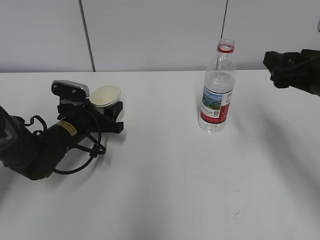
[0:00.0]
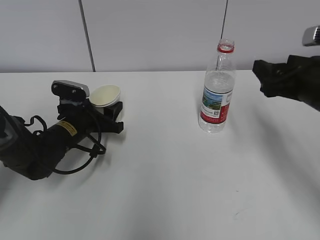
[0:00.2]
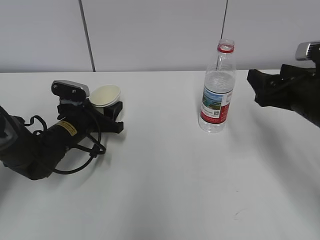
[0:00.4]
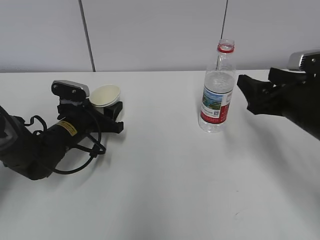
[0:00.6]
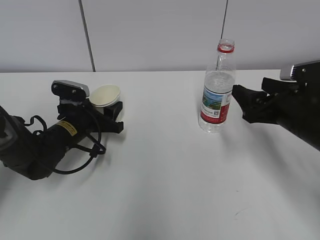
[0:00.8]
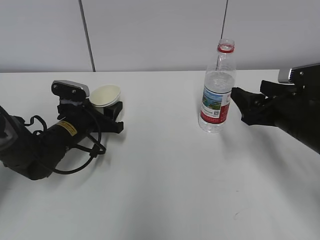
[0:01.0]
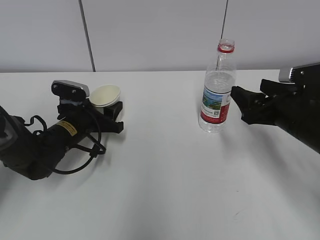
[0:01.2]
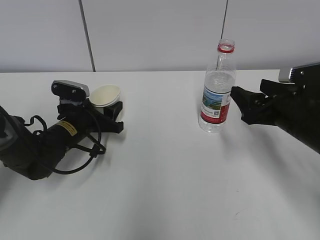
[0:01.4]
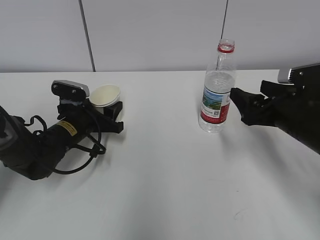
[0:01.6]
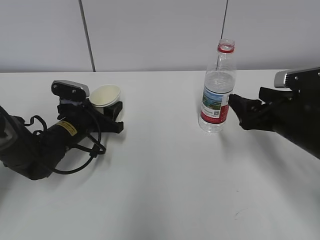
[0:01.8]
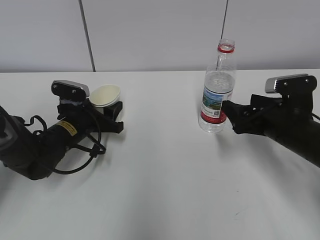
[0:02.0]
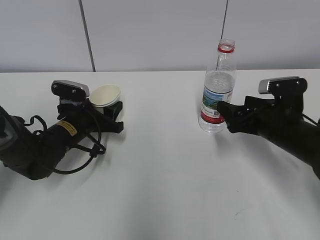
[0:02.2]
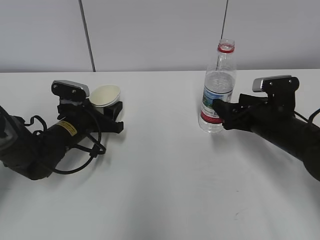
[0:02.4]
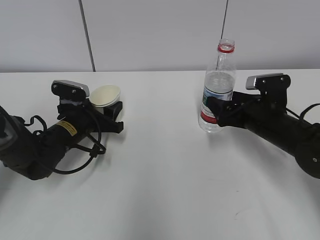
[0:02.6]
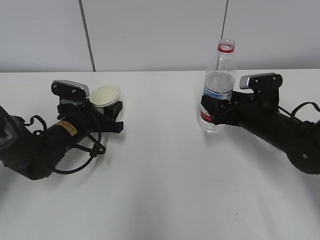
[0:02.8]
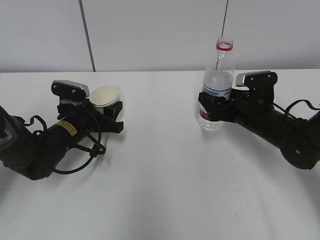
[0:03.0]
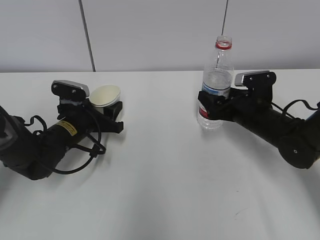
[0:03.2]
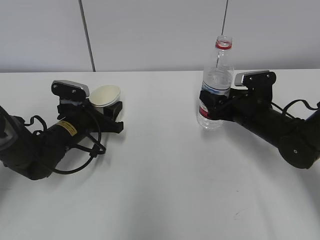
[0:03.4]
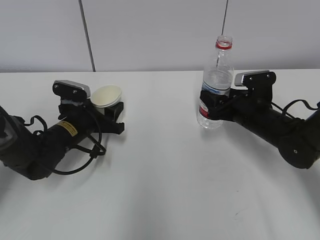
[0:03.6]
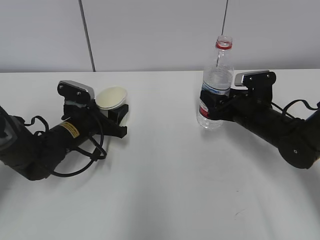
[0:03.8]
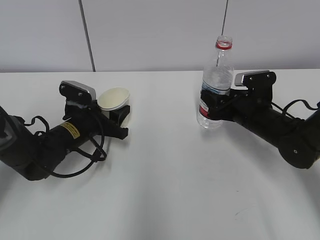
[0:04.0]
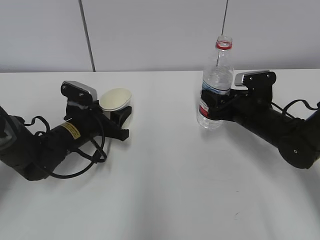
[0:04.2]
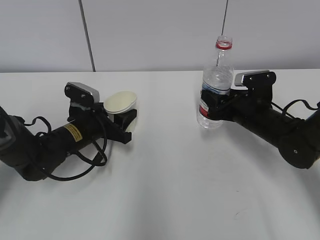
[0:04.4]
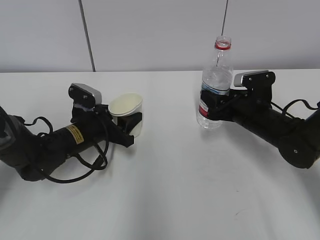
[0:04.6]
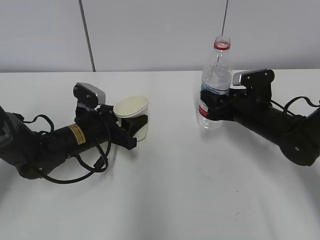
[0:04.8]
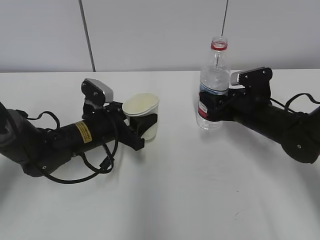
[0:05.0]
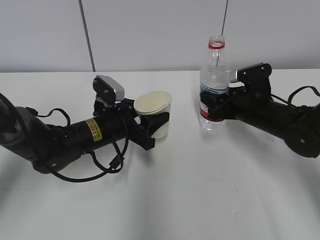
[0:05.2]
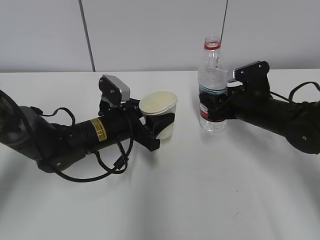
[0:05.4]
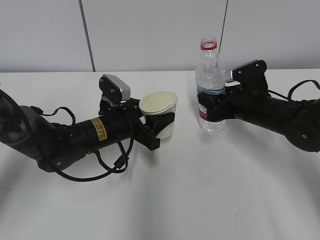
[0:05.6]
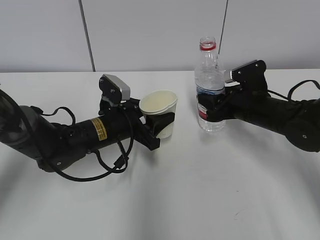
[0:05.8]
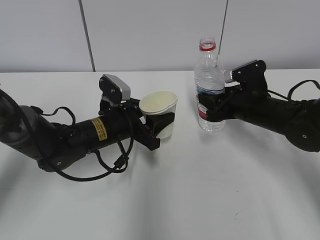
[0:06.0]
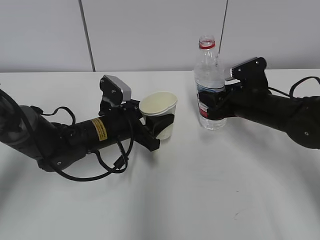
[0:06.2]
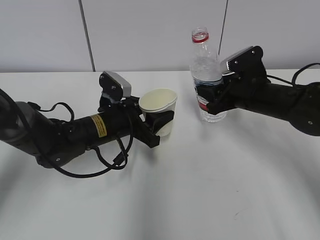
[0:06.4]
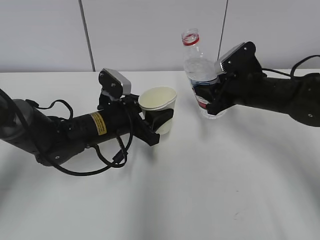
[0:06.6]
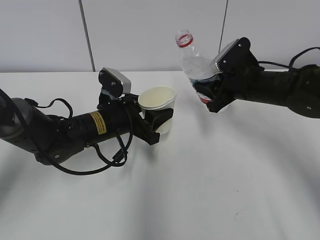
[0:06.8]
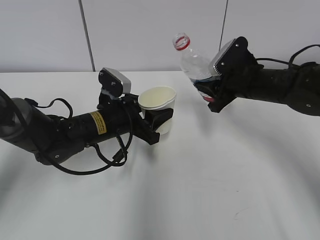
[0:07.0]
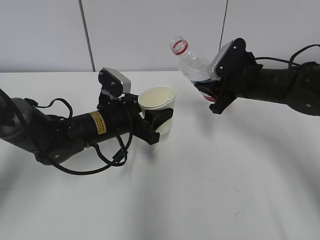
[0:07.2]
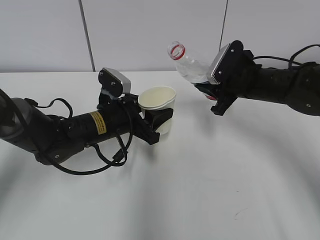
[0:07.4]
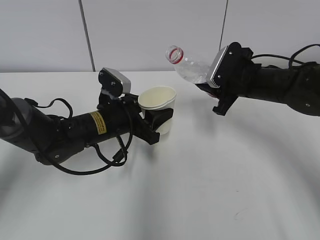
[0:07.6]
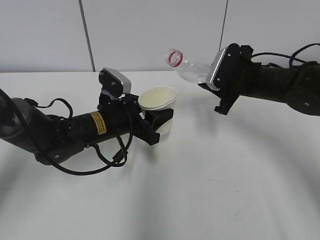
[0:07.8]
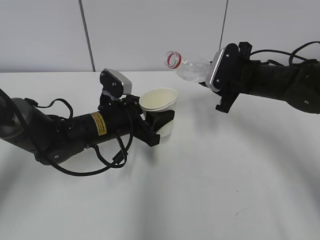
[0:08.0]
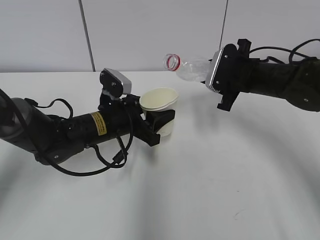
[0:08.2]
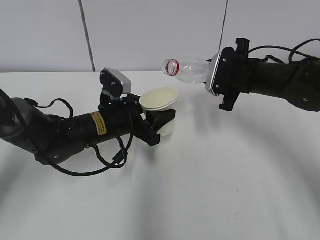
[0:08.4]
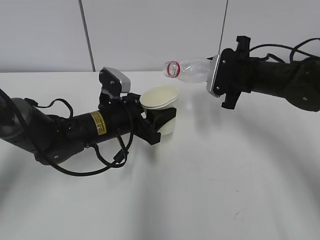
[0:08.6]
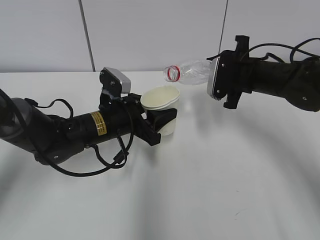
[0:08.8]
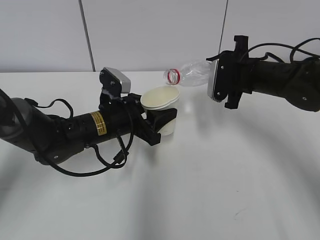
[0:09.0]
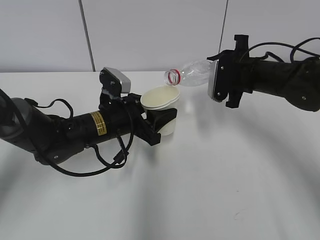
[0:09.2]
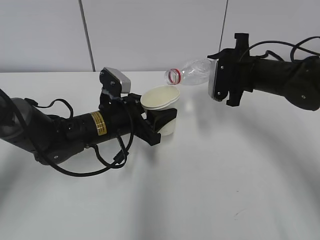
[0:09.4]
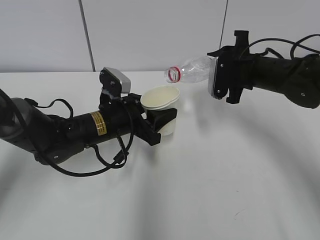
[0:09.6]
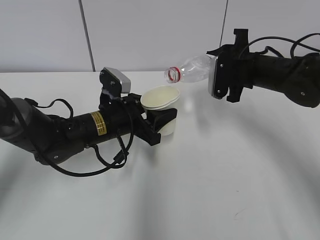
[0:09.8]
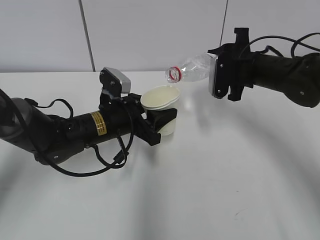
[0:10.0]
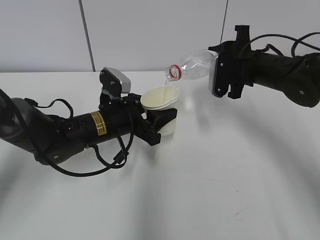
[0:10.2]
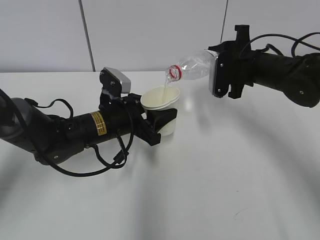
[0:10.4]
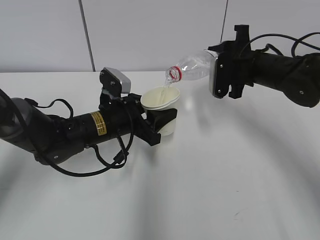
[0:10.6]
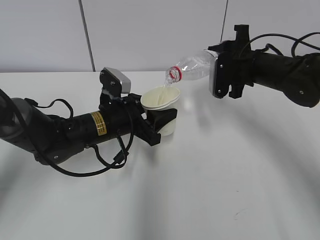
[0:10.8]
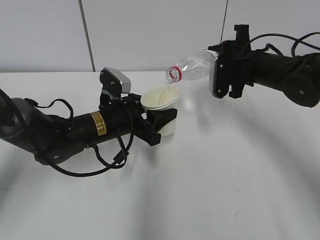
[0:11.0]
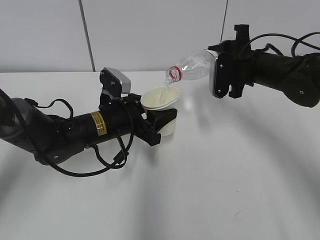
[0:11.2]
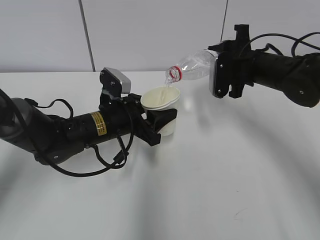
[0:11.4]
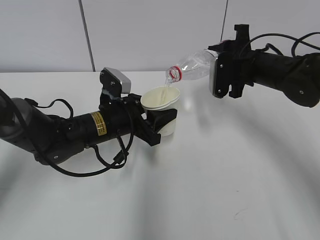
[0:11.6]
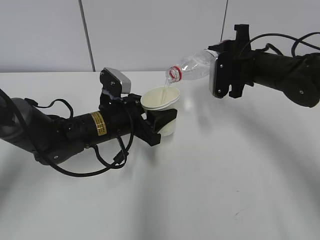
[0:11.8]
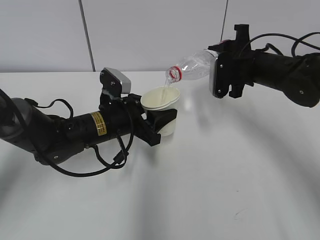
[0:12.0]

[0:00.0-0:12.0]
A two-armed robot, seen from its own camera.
Step, 0:00.0 to 0:01.6: Grab the water bottle with the right hand.
Step, 0:01.8 to 0:07.2: Lift the paper cup with the left hand.
Step, 0:07.4 to 0:11.6: Fill water with the left hand.
Step, 0:07.4 to 0:11.6: Pour water with the right hand.
0:00.0 to 0:01.6: The right gripper moves downward, approximately 10 cm.
0:01.6 to 0:03.0: The right gripper travels forward and downward by about 10 cm.
0:03.0 to 0:04.4: The right gripper closes its fingers.
0:04.4 to 0:06.0: The left gripper travels to the right by about 5 cm.
0:06.0 to 0:07.6: The right gripper changes place by approximately 5 cm.
0:09.0 to 0:10.4: The grippers make only small movements.
0:10.4 to 0:12.0: Both grippers stay put.

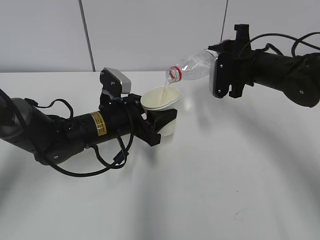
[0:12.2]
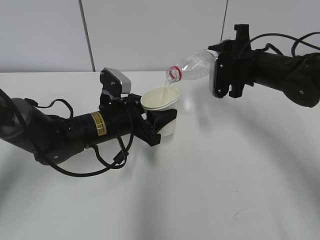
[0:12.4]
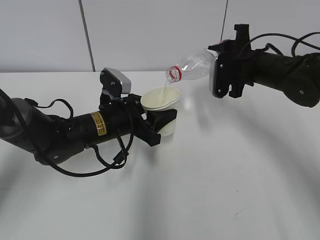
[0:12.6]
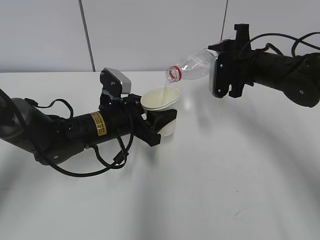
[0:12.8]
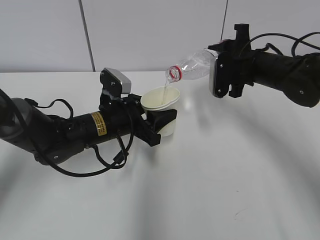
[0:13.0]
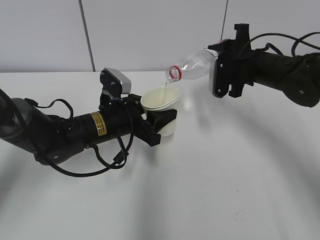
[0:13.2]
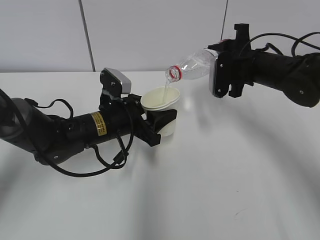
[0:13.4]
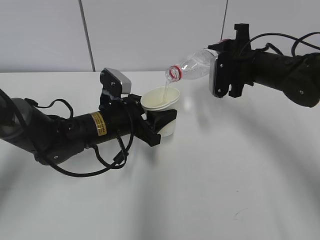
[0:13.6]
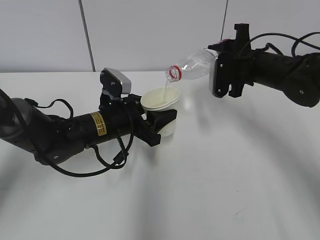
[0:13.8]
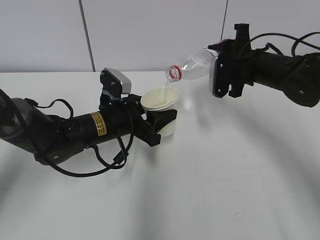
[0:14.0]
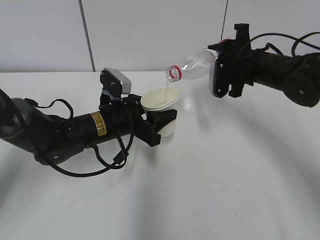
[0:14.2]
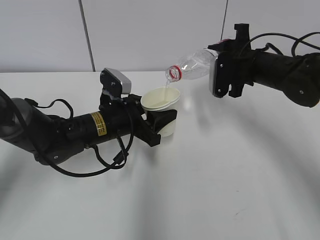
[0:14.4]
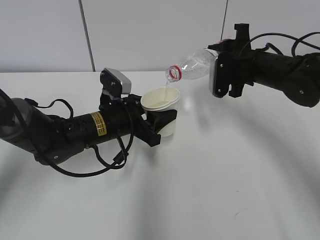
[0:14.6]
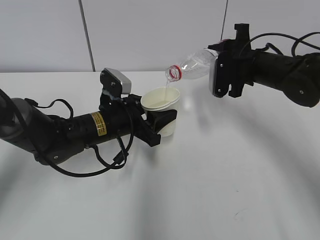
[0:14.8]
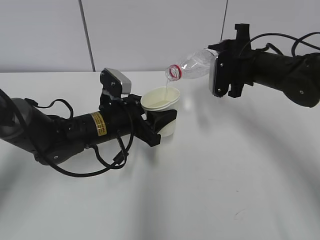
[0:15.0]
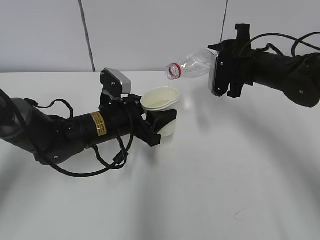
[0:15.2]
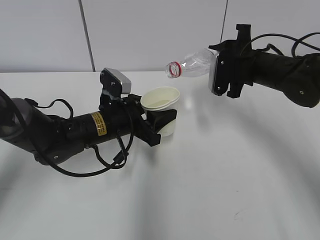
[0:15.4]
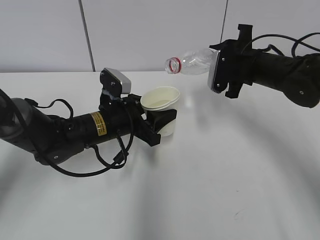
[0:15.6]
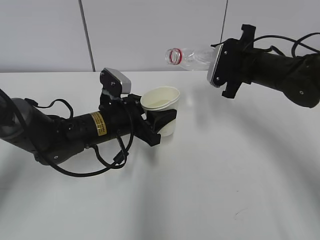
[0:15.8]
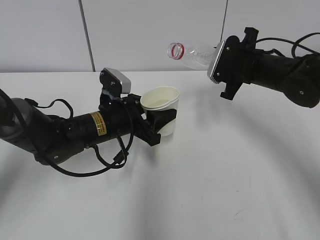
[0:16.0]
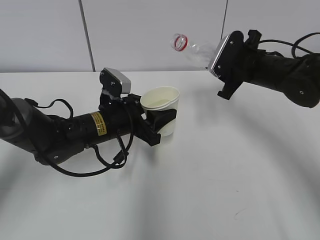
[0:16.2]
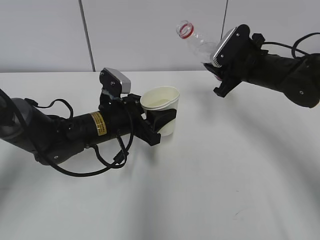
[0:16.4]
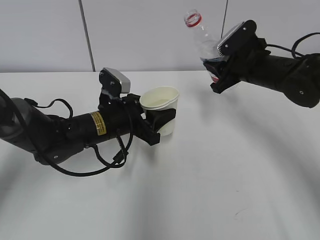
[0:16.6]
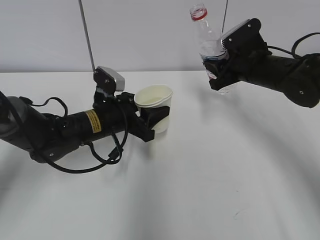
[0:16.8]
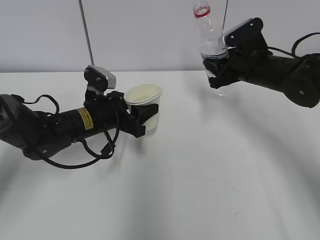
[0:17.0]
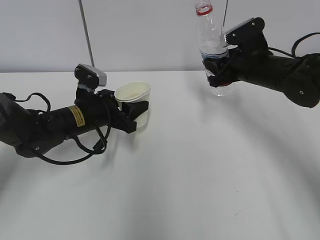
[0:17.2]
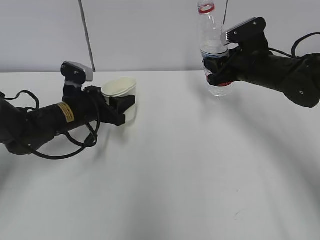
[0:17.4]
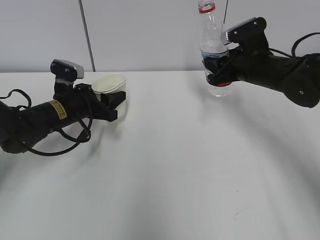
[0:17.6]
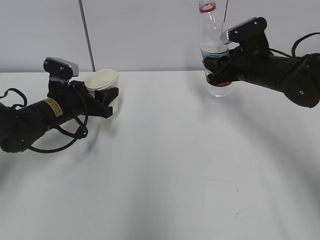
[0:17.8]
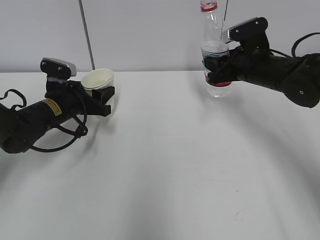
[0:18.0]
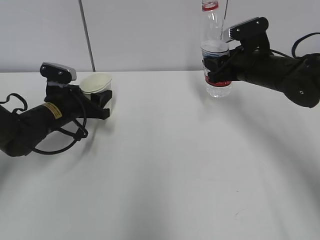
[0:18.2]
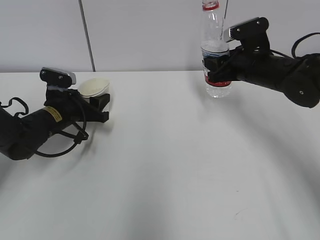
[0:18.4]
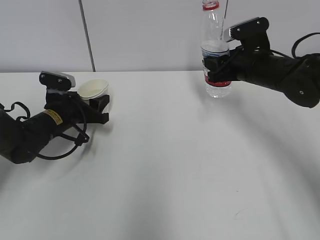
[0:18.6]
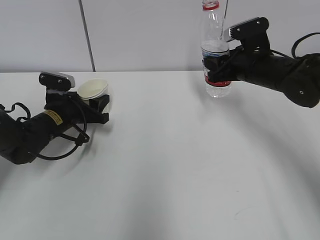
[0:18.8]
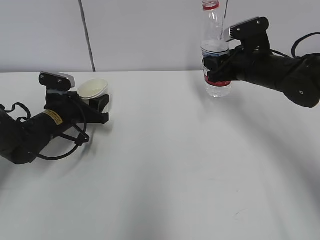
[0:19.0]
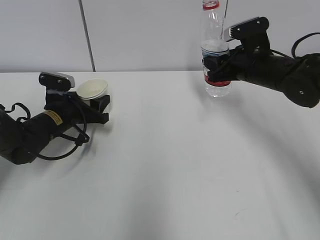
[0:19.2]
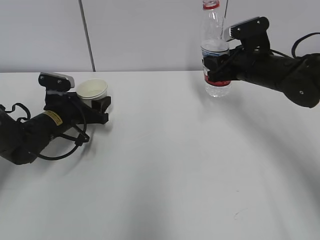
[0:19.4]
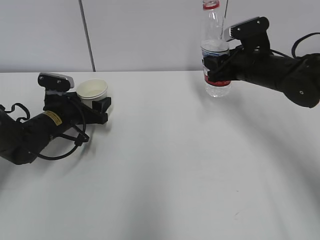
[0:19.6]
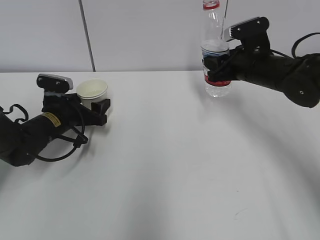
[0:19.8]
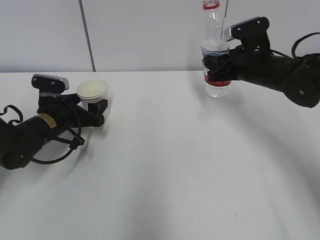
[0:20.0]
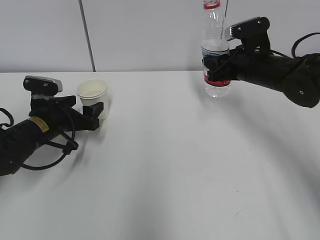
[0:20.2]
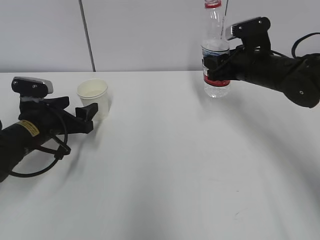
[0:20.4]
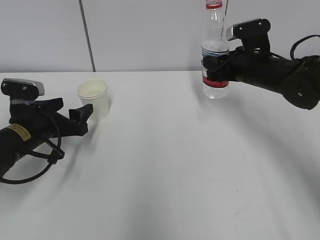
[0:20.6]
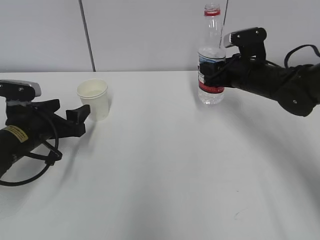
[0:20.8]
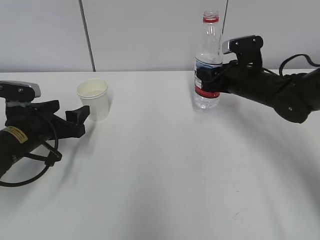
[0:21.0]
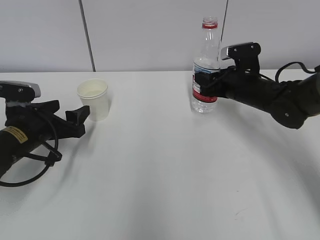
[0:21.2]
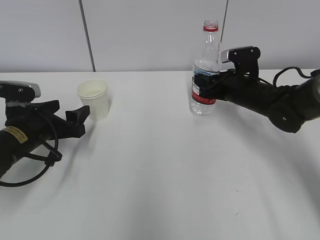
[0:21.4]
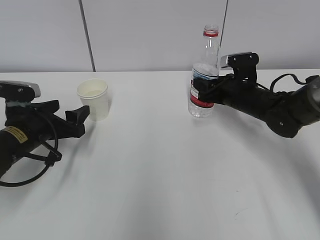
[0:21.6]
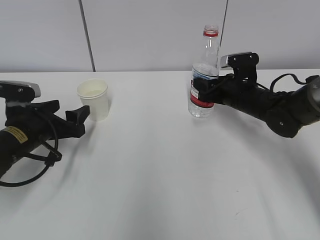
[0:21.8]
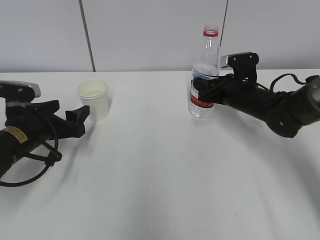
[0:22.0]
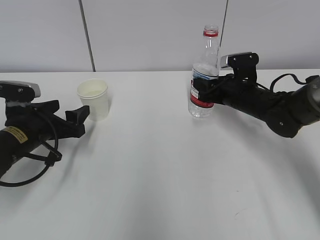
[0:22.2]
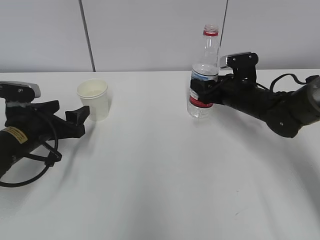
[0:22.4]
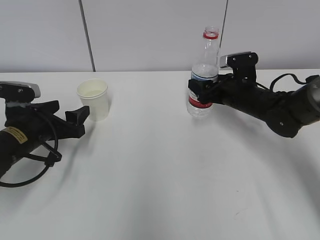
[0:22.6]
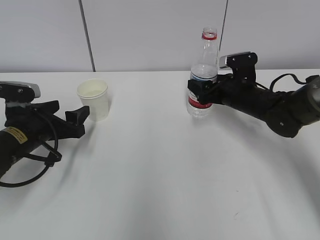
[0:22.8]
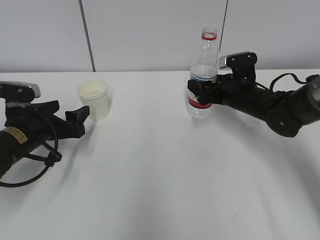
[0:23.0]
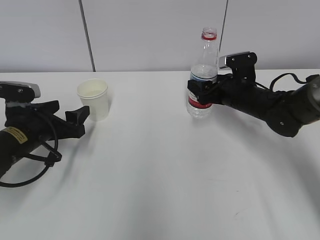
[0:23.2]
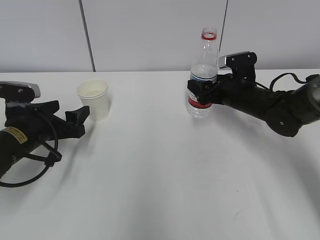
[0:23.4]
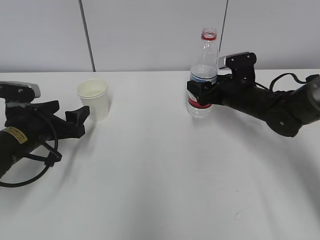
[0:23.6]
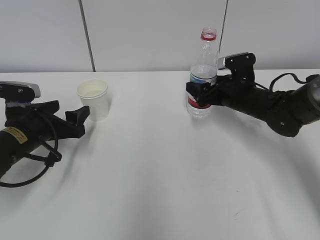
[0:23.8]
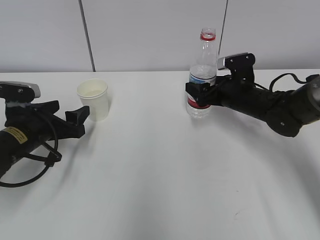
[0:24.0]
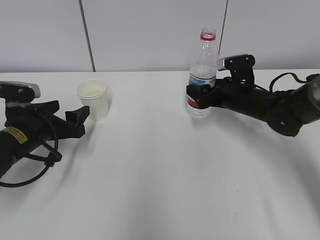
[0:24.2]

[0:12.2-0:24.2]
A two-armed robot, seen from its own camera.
0:12.2 to 0:15.2: Both grippers stay put.
0:16.6 to 0:18.2: The left gripper heads to the left and forward, covering about 10 cm.
0:18.2 to 0:19.8: The left gripper opens its fingers.
0:19.8 to 0:21.2: The left gripper moves backward, roughly 10 cm. Meanwhile the right gripper goes about 5 cm downward.
0:21.2 to 0:22.6: The right gripper opens.
0:22.6 to 0:24.2: Both grippers stay about where they are.
